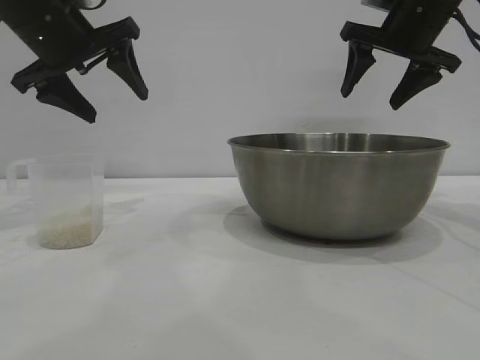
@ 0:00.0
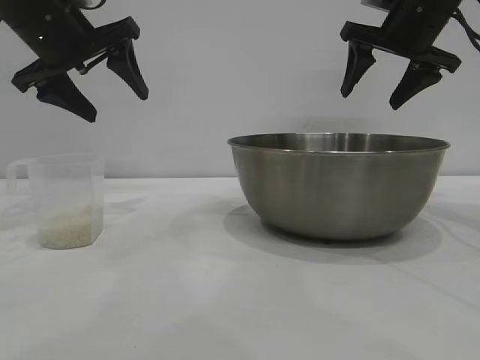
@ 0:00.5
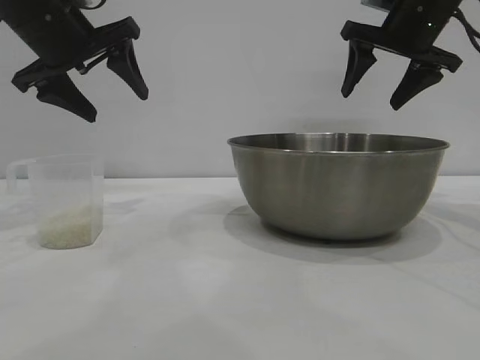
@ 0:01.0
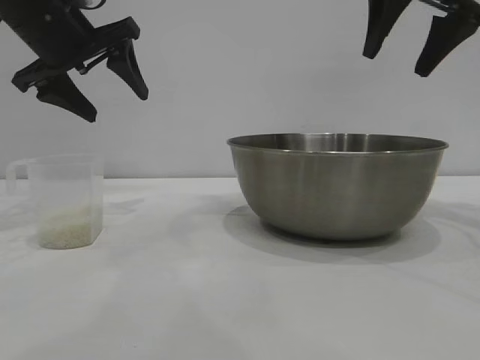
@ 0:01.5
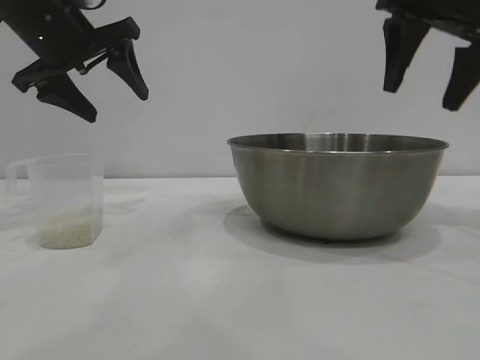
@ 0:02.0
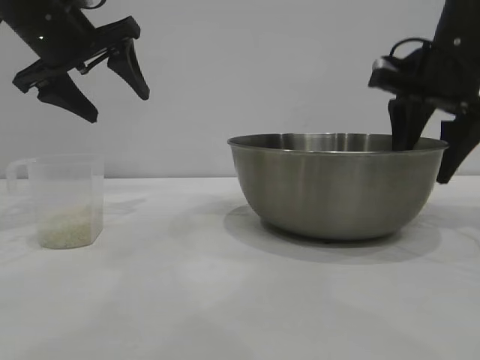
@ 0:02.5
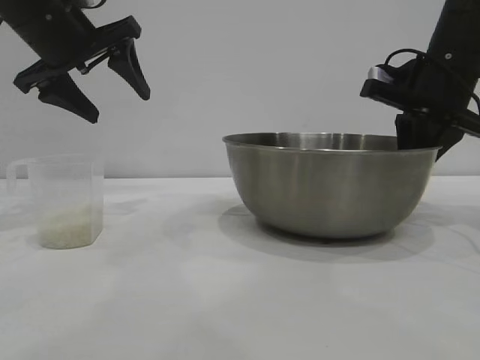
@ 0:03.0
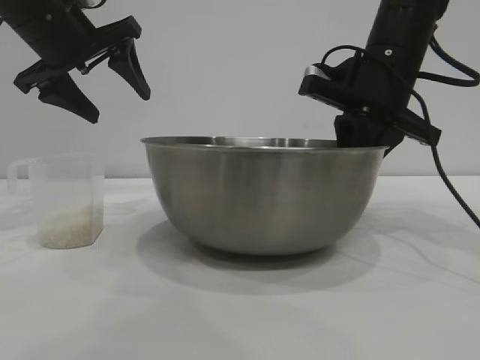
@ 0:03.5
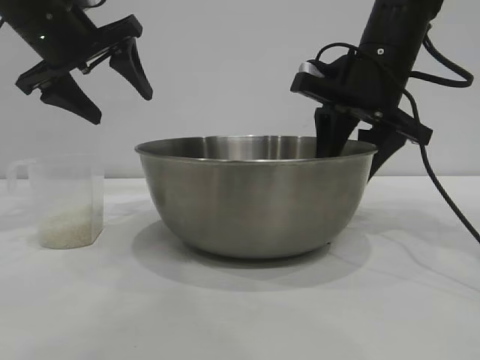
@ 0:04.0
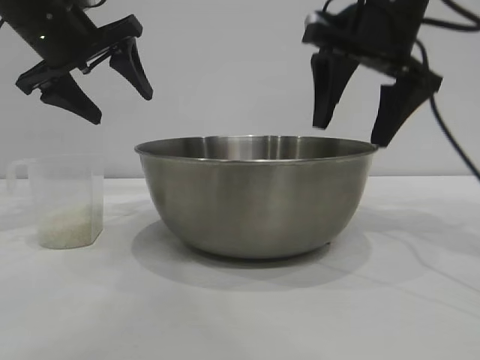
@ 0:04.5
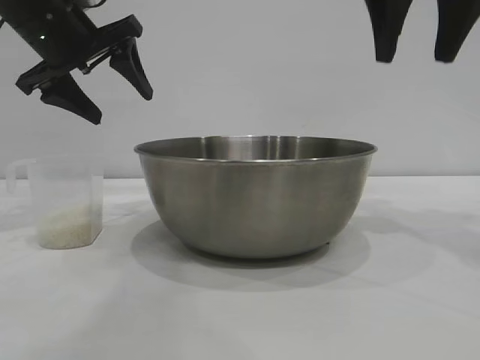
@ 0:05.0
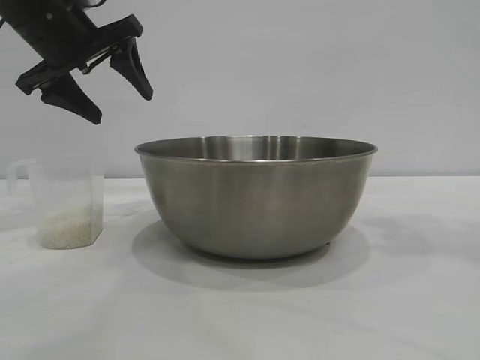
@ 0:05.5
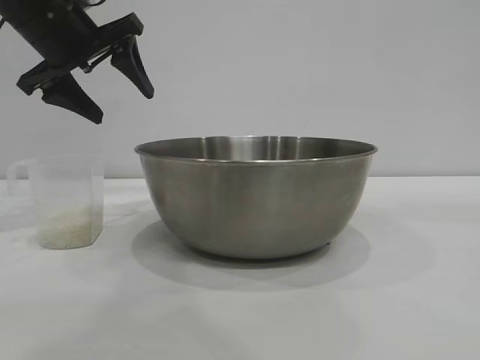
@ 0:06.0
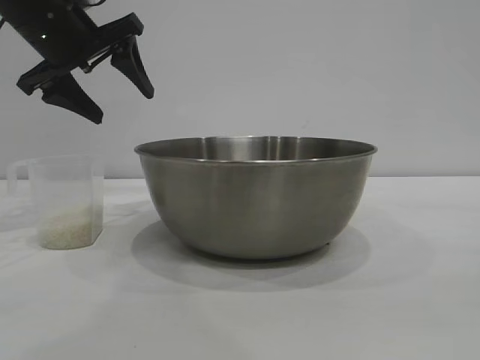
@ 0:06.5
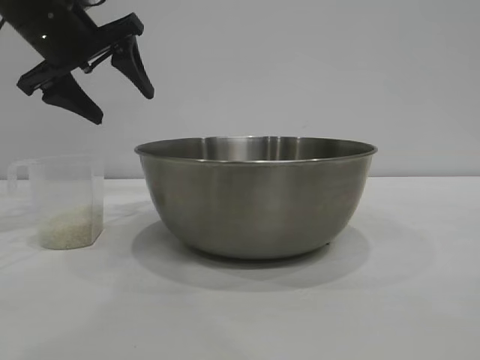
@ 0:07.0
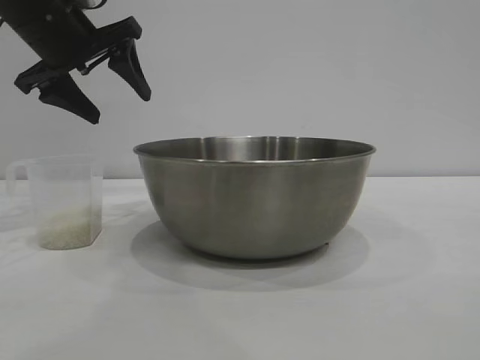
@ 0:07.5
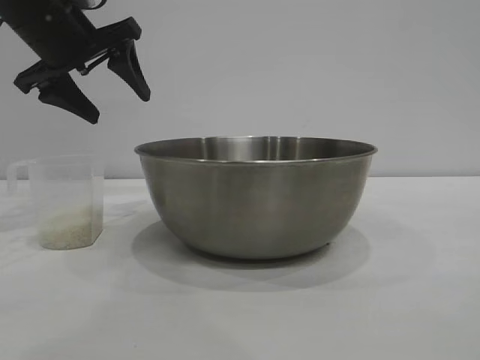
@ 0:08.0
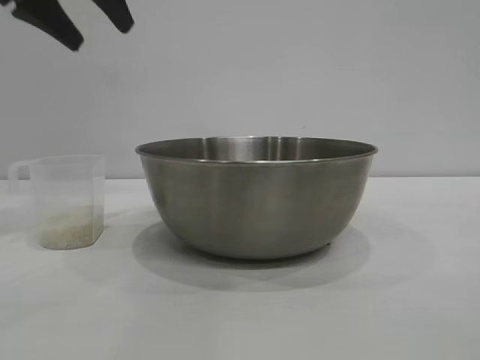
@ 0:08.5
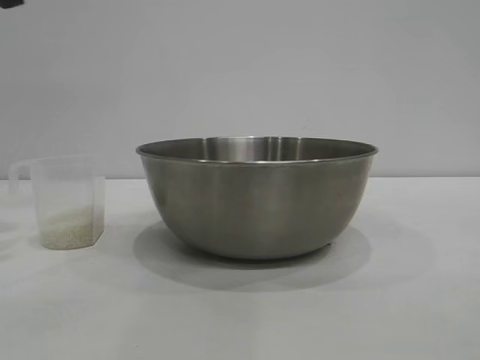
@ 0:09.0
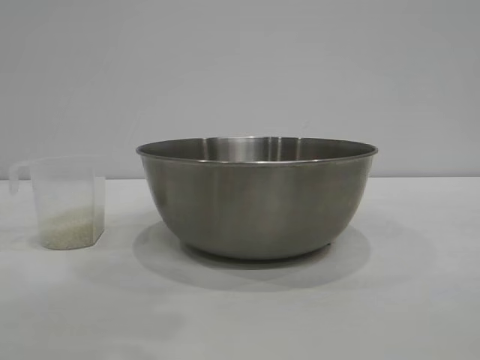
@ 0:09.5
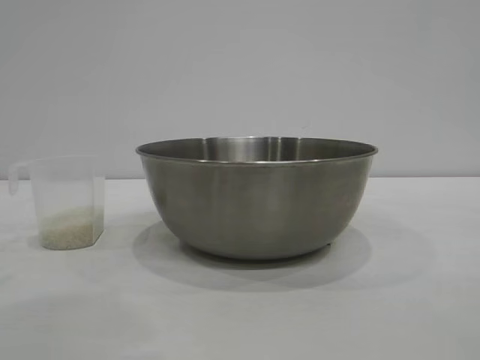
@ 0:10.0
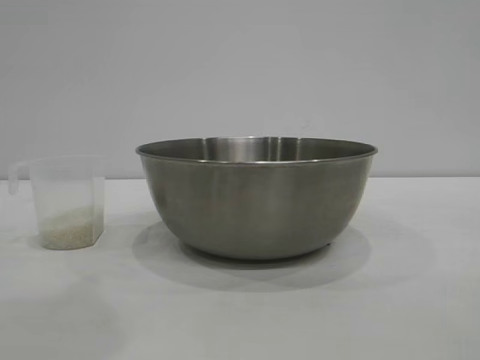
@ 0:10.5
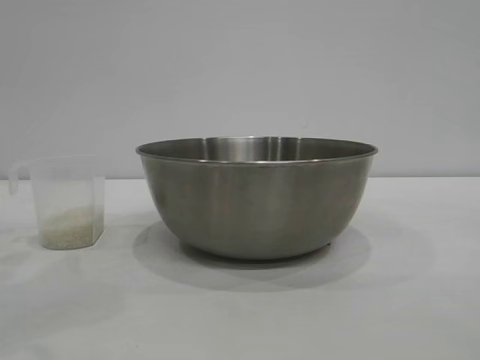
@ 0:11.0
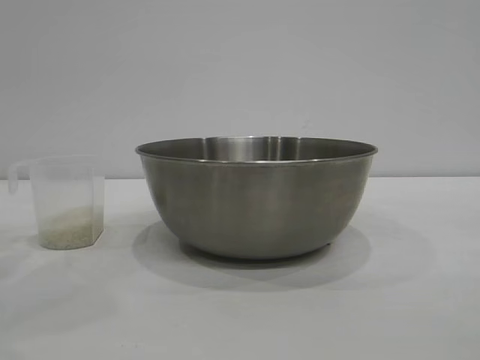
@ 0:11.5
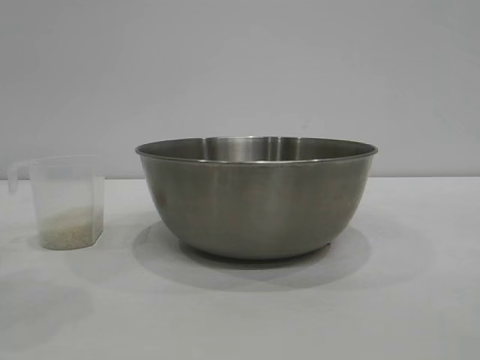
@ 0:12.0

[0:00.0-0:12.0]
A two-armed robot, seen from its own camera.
Task of the whole recording: the right gripper grasp the rice container and place it in the center of the table, the left gripper grasp the rice scoop and pour the rice into the rice container.
Step, 0:00.0 to 0:04.5: Move the bowl to the center of view with the right gripper.

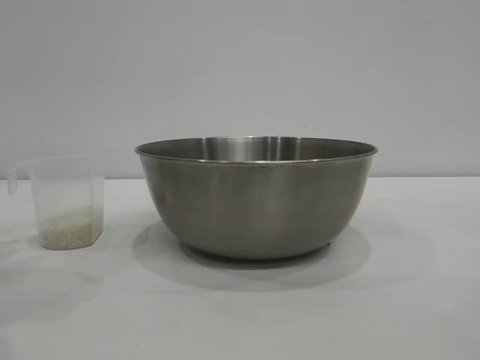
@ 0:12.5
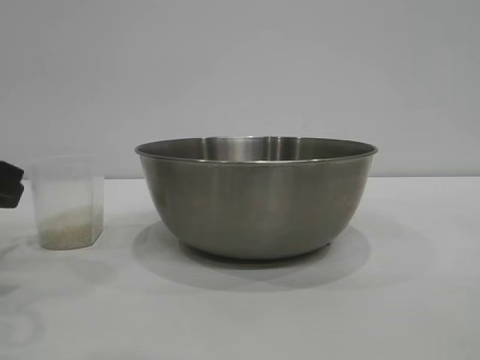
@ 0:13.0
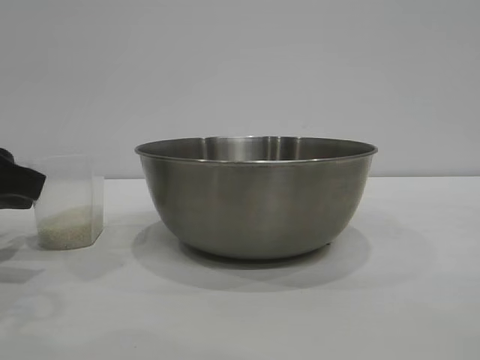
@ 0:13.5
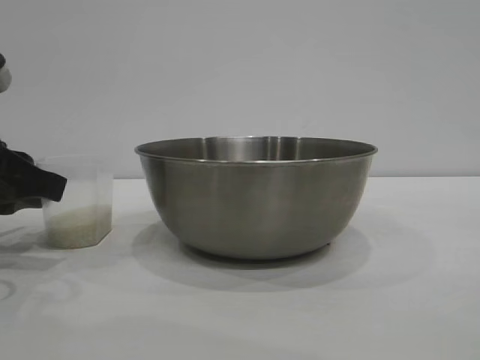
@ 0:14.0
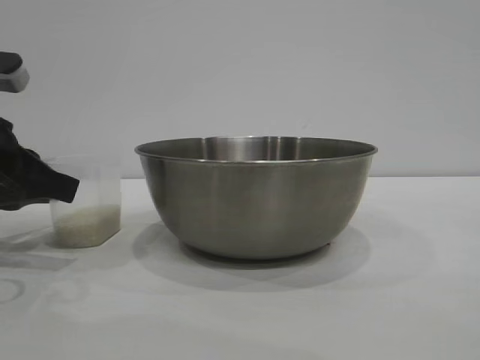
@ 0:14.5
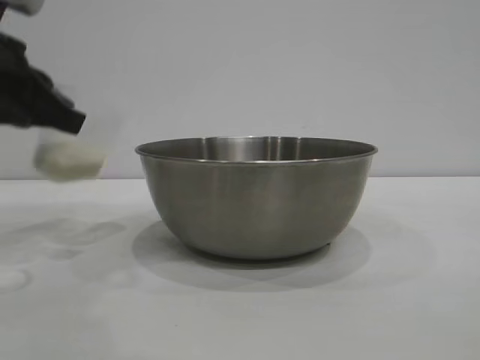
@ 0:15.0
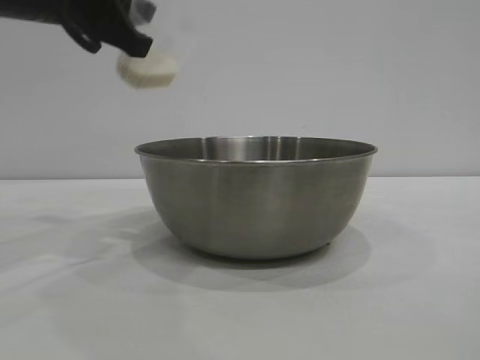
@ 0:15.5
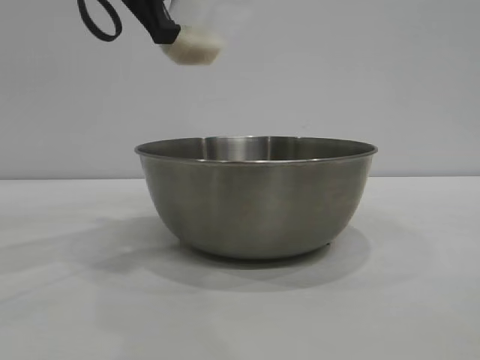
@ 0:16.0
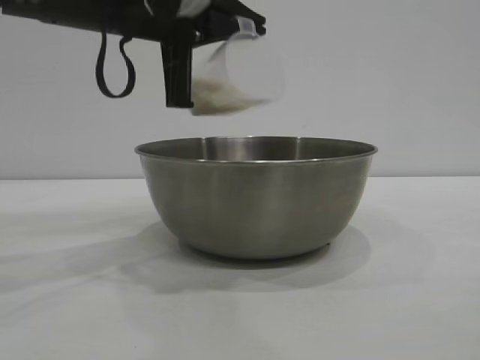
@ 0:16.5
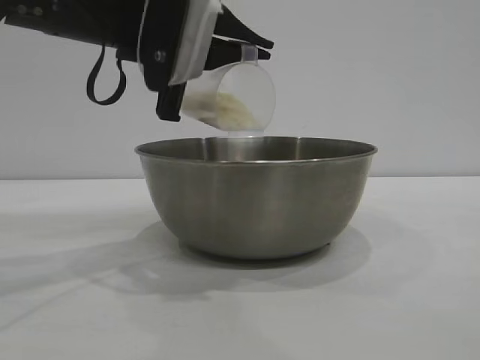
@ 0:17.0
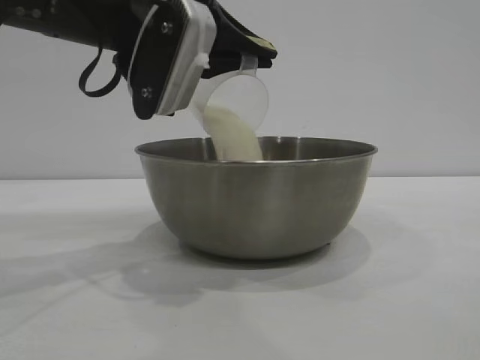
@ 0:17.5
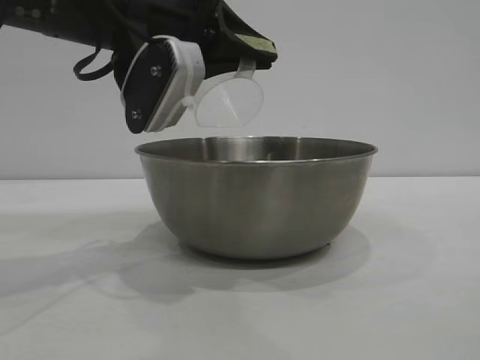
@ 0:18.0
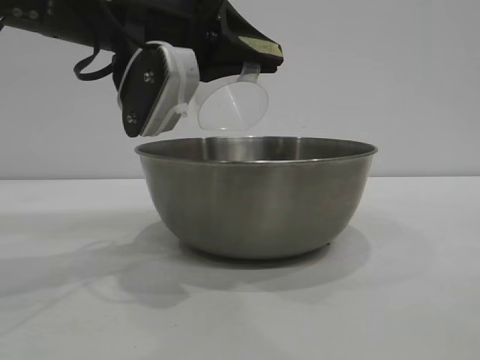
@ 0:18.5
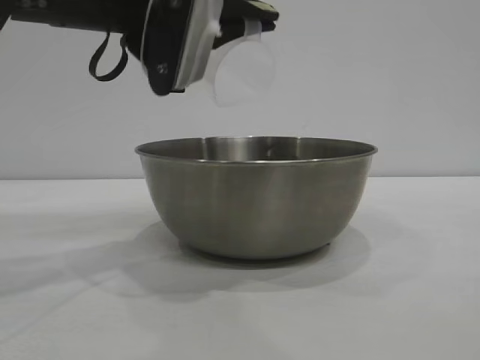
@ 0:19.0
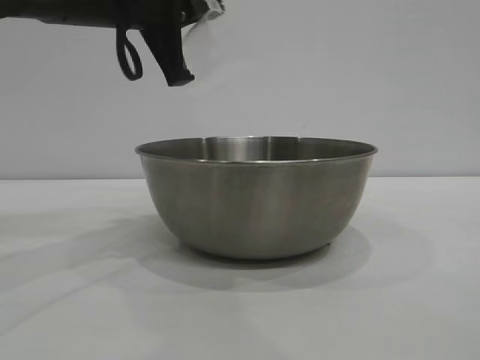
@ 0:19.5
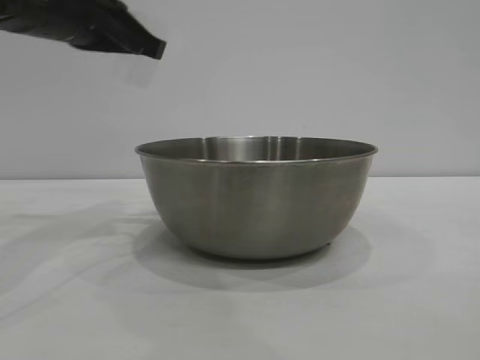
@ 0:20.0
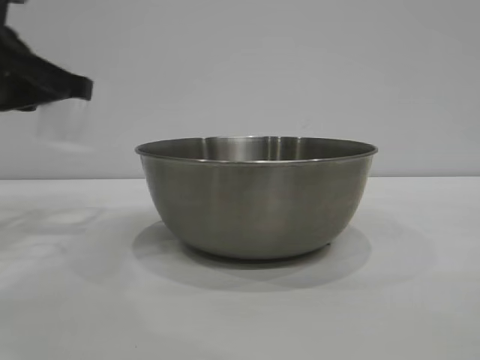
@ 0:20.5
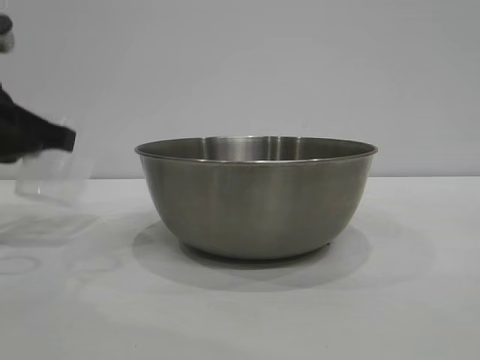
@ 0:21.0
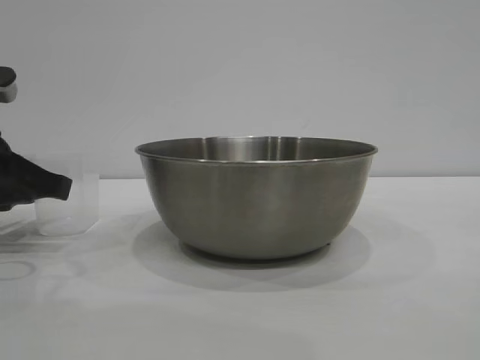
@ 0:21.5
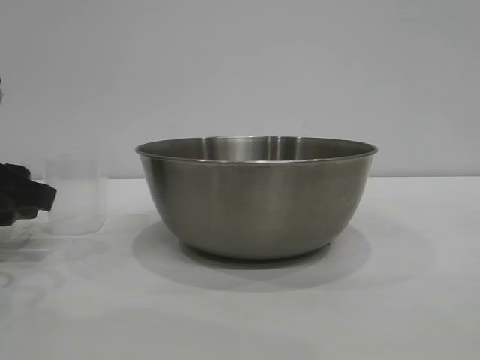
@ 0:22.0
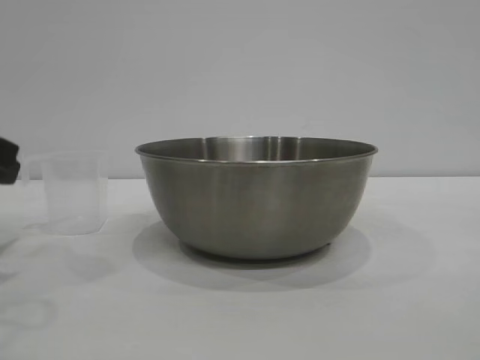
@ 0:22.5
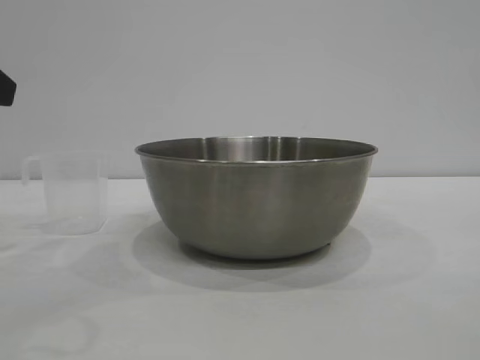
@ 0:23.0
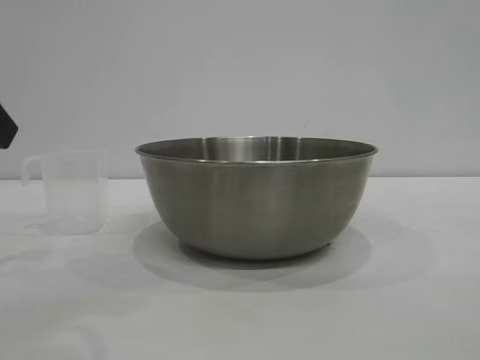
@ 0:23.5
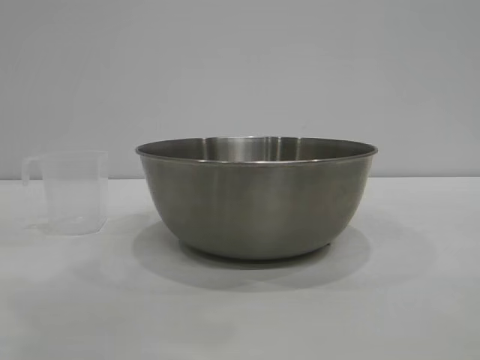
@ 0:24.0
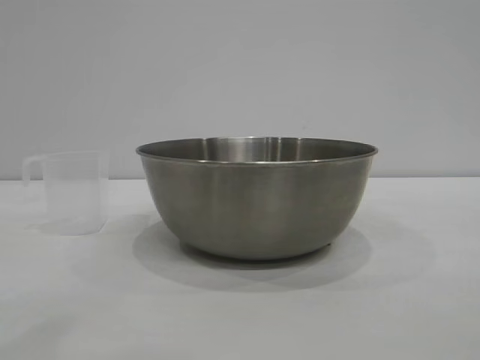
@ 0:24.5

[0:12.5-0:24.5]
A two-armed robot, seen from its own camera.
Task of the whole recording: the right gripper grasp the rice container and place it in the center of the table, the left gripper grasp the rice scoop and pour the rice into the rice container.
Step, 0:12.5 to 0:15.0: Pick up the cup with rice in it with the left gripper.
Step, 0:15.5 to 0:18.5: Pour the rice from the cup into the bowl with the left gripper.
Step, 0:19.0 to 0:22.0: Place the cup on the table with the left gripper.

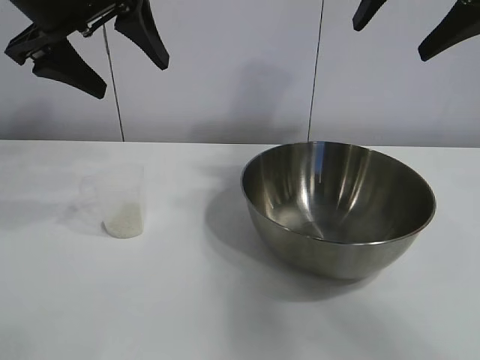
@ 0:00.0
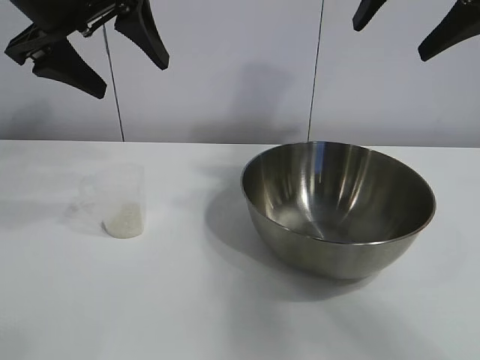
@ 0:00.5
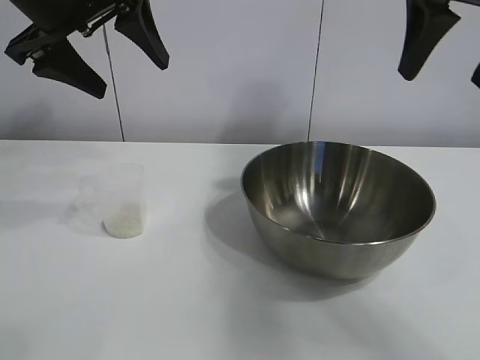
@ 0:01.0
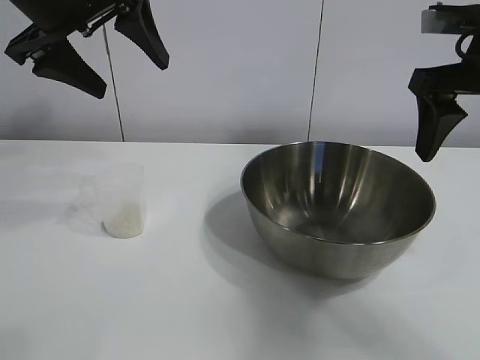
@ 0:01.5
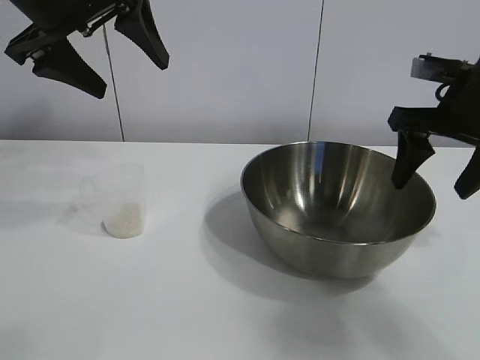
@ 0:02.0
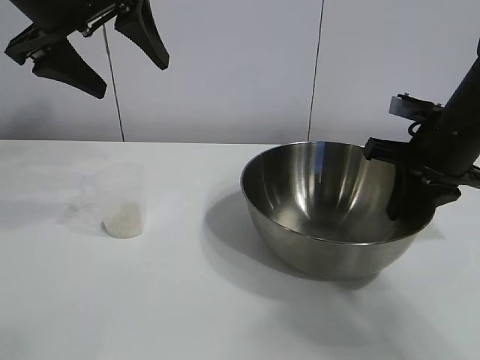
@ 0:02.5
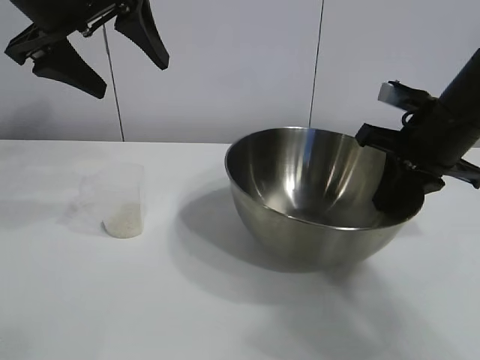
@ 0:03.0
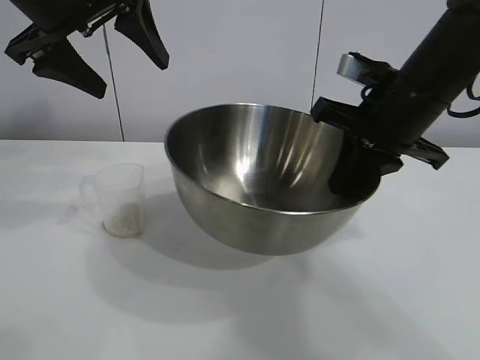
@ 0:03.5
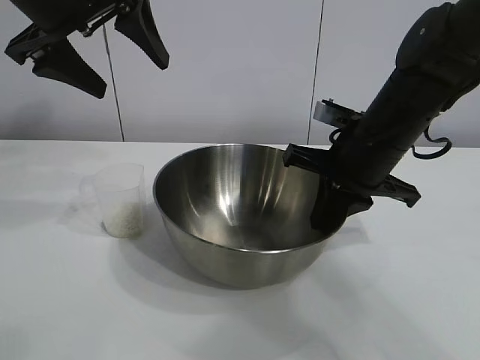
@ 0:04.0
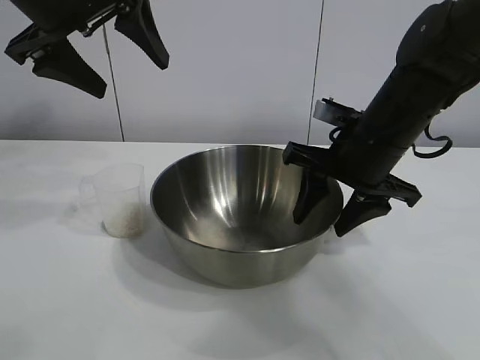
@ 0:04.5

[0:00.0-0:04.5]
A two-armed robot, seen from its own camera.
Task of the whole recording: the right gripper grasp the rice container and place it in the center of the table, the left gripper grasp the rice scoop and pour the rice into the rice container.
Step, 0:01.0 to 0:04.5: Move the bowl in the center of view with right gripper.
